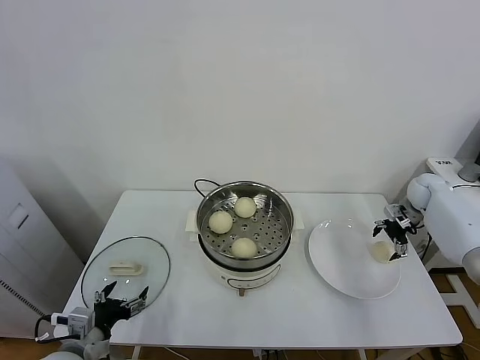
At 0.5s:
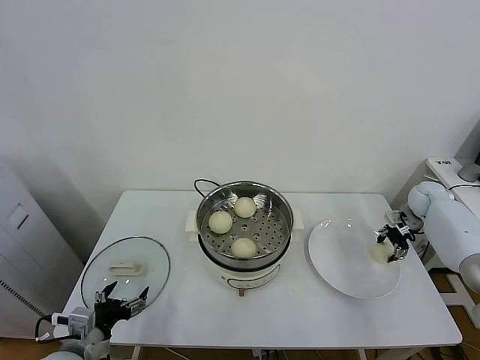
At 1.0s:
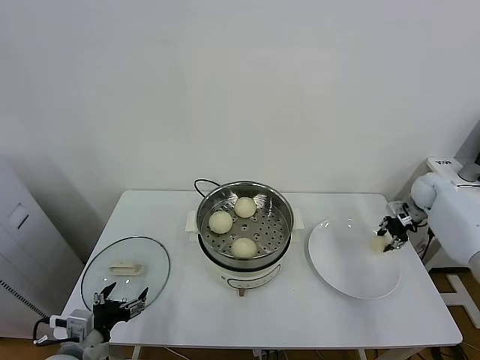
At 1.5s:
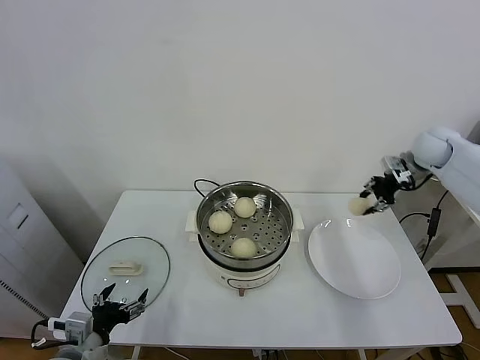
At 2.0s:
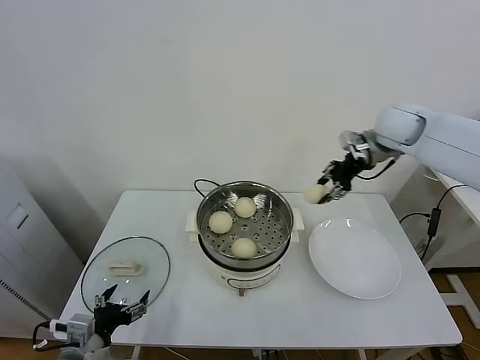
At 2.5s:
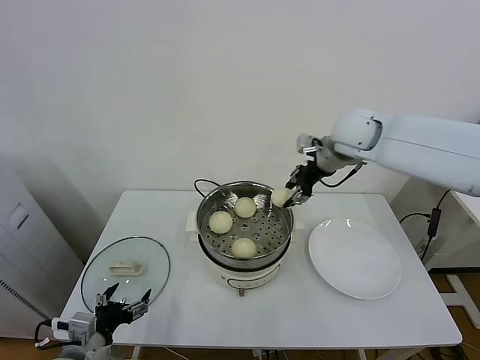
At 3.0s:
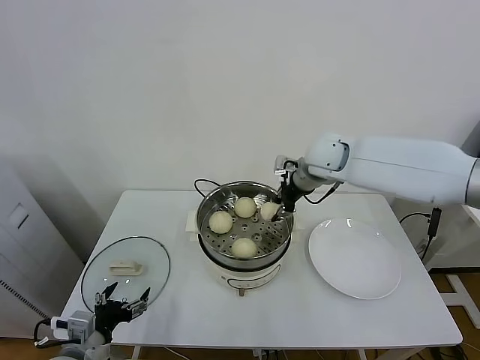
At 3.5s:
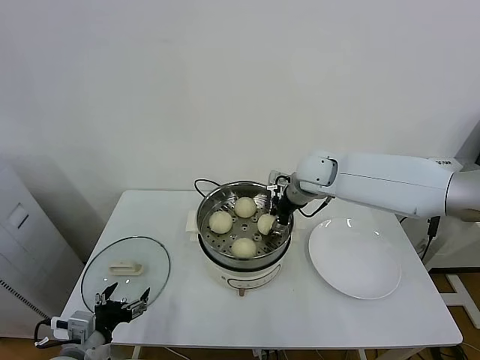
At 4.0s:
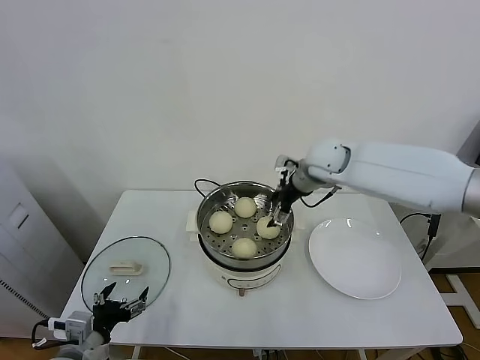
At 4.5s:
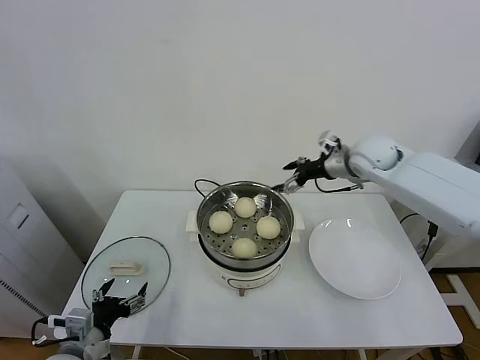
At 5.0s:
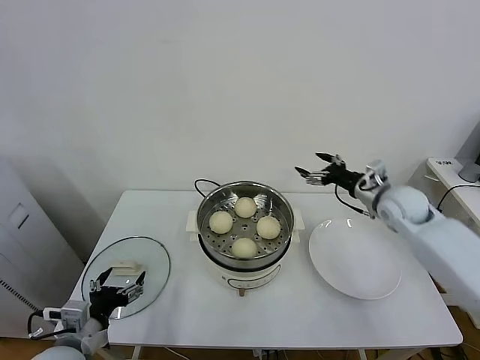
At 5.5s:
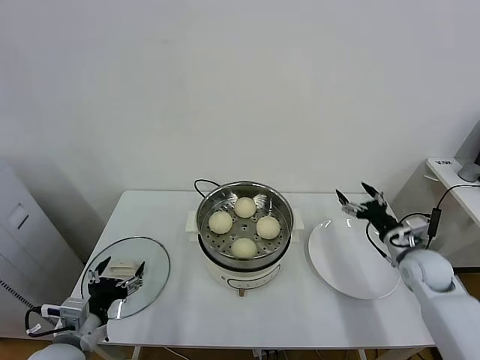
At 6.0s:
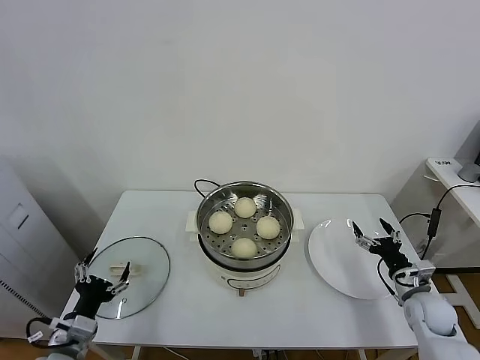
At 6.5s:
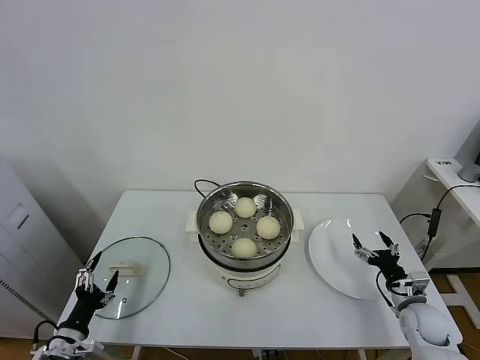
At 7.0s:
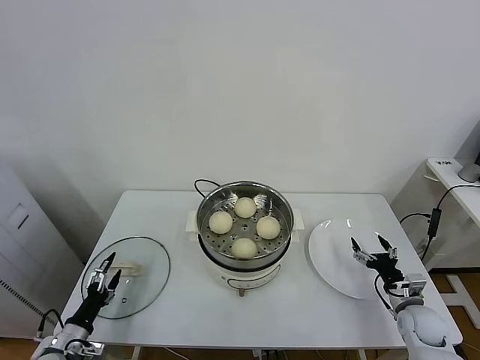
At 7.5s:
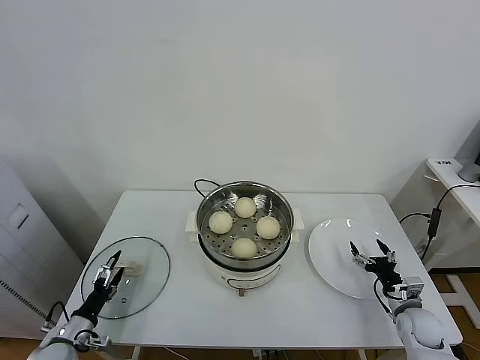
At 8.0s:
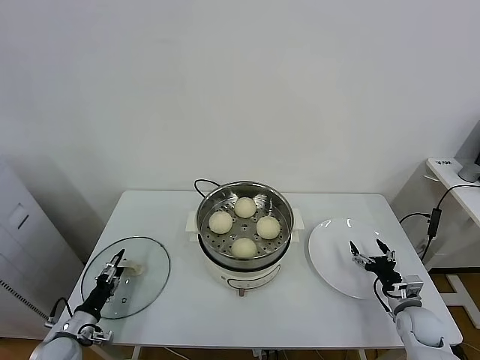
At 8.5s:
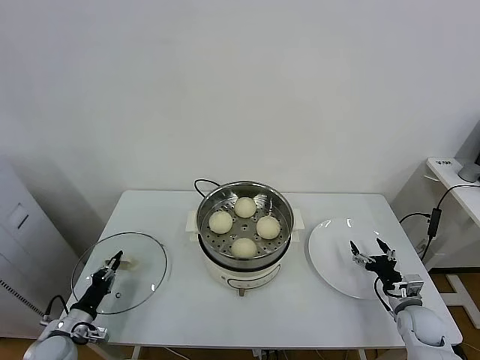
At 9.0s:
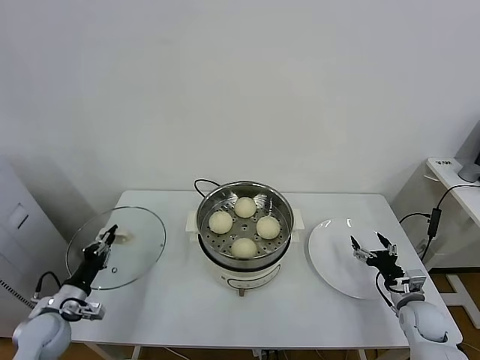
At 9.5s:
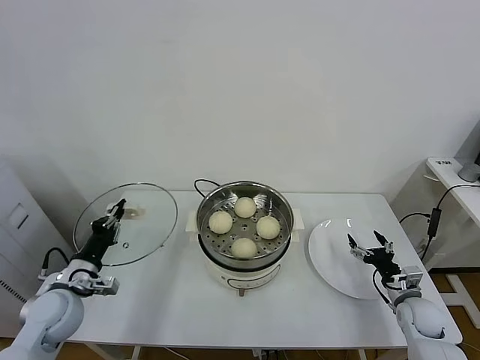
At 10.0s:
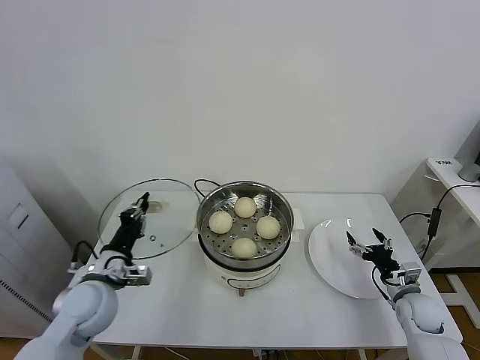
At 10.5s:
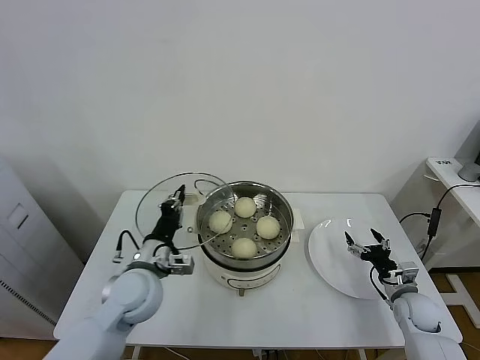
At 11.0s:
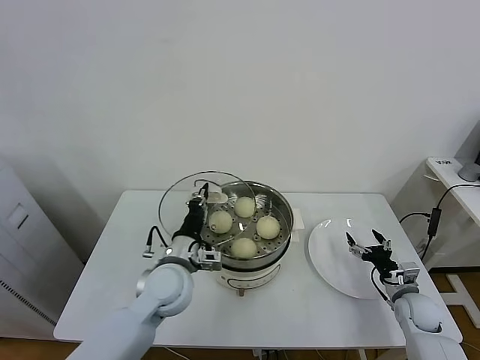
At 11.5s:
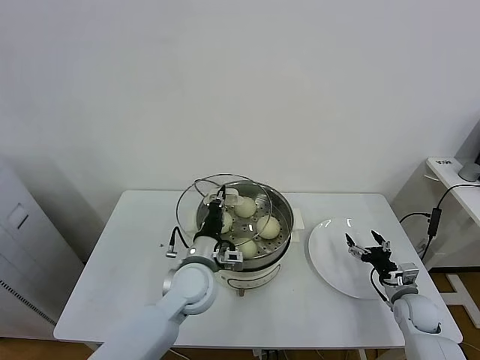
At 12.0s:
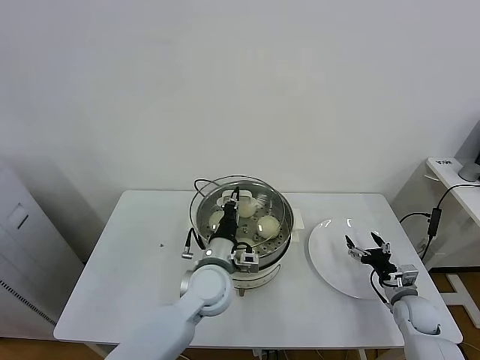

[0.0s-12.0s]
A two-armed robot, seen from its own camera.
Task of the whole recording: take steamed baozi put them in steamer.
Step, 1.0s to 3.5s: Place the baozi on the steamer with right gripper.
Step, 4.5s to 8.5s: Grasp the pot lid with left gripper.
0.0s to 2.0s: The right gripper heads upward and to the left, covering some 30 cm, and closes its fingers.
2.0s to 4.0s: The right gripper shifts some 15 cm to the left and downward, and opens up.
4.0s to 6.0s: The right gripper goes about 40 cm downward, to the right and backward.
6.0s to 8.0s: The right gripper travels downward by roughly 5 cm; the left gripper moves downward, to the left and forward, about 15 cm, and closes its fingers.
8.0s to 10.0s: The left gripper is displaced upward and to the right by some 25 cm, and closes up.
10.0s to 12.0s: The left gripper goes about 25 cm to the right.

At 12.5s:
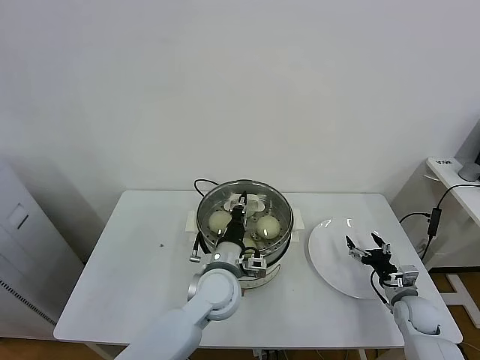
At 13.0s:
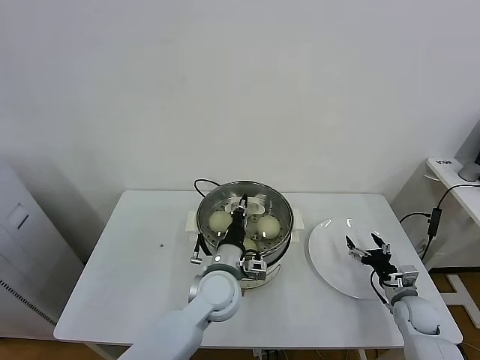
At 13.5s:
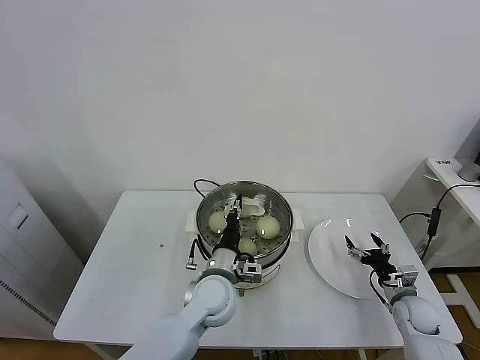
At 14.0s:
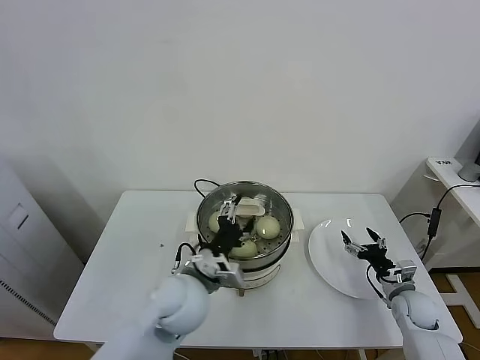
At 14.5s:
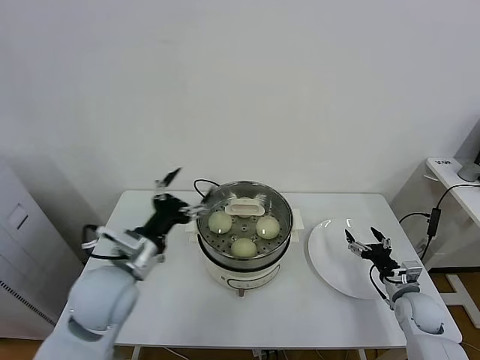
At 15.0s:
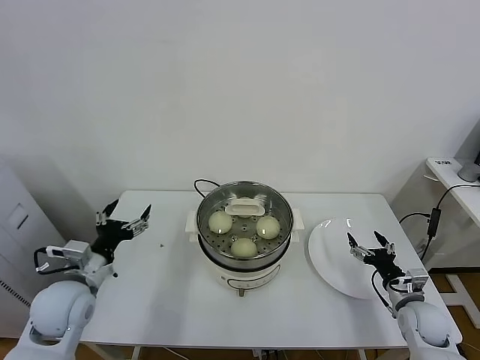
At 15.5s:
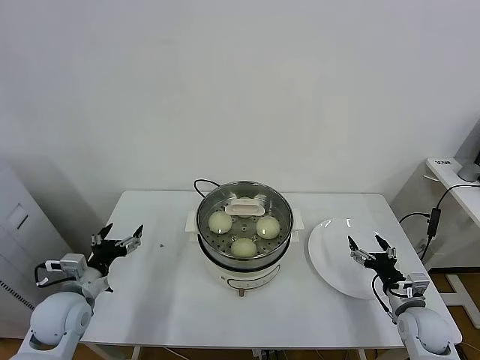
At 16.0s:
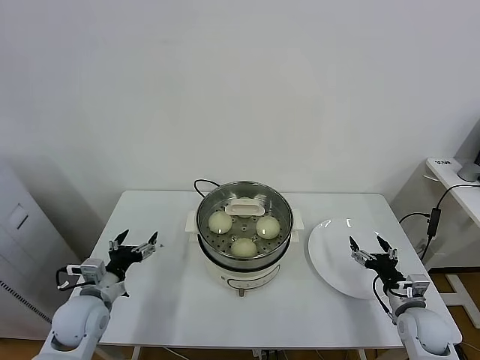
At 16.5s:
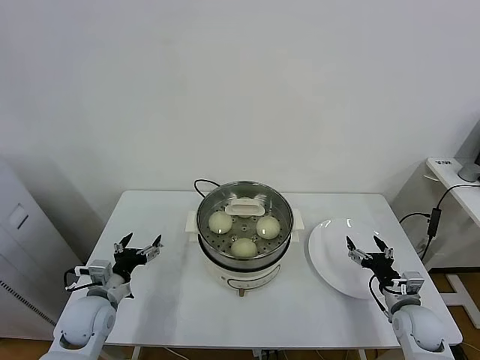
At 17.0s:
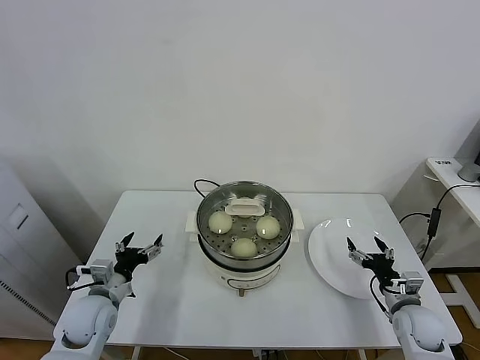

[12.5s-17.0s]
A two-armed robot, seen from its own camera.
Task of the whole recording: take steamed baozi put them in steamer.
12.5s to 14.5s: The left gripper is displaced to the left and upward by some 20 cm, and opens up.
14.5s to 17.0s: The left gripper shifts some 20 cm downward and to the left.

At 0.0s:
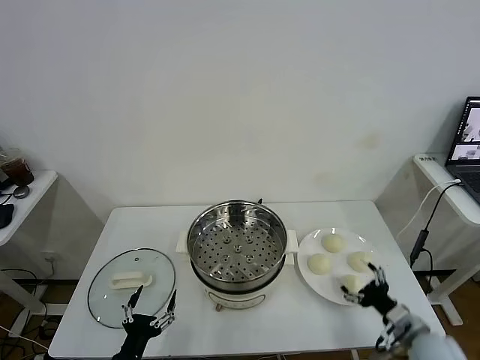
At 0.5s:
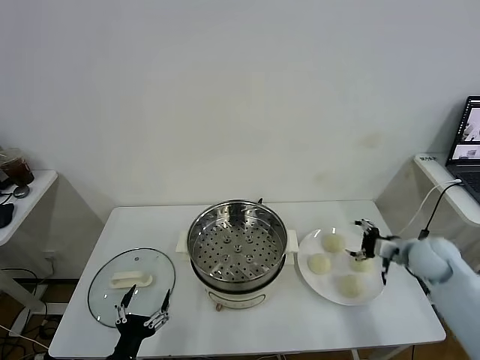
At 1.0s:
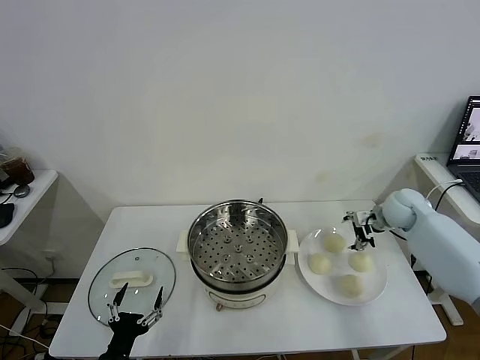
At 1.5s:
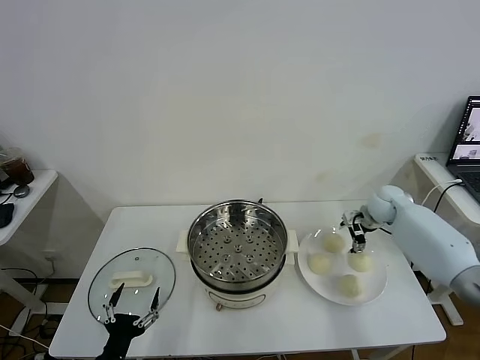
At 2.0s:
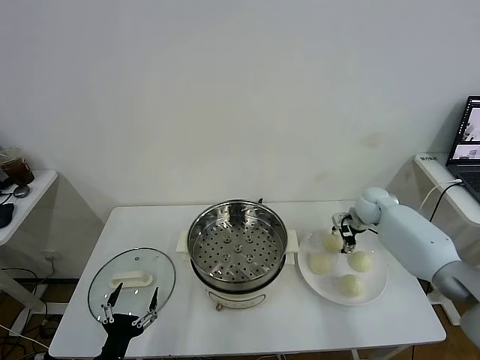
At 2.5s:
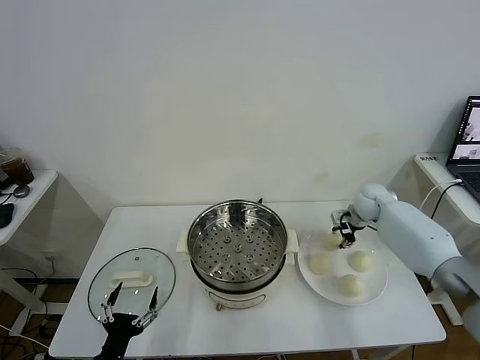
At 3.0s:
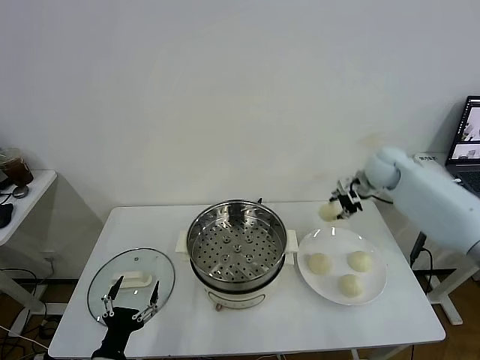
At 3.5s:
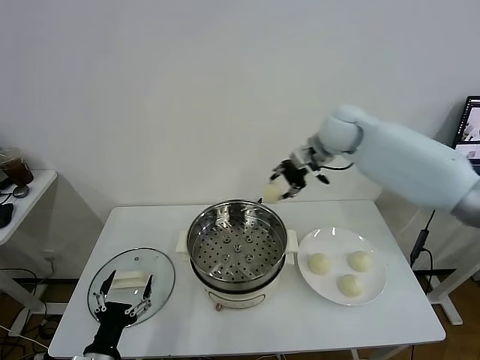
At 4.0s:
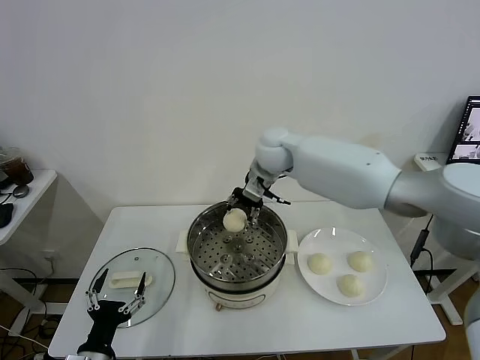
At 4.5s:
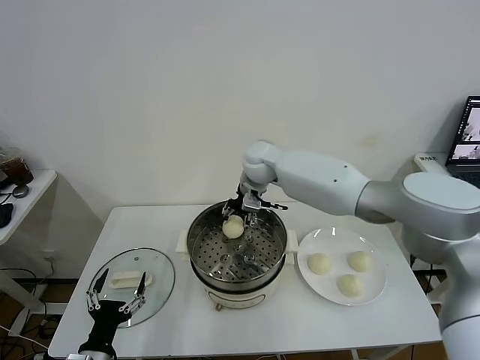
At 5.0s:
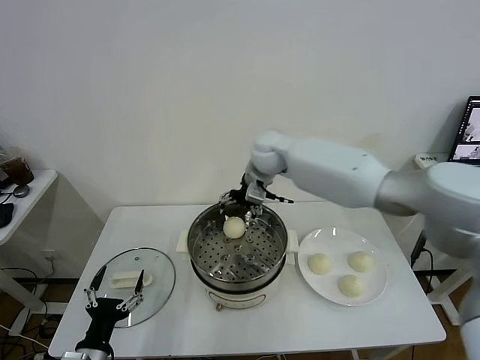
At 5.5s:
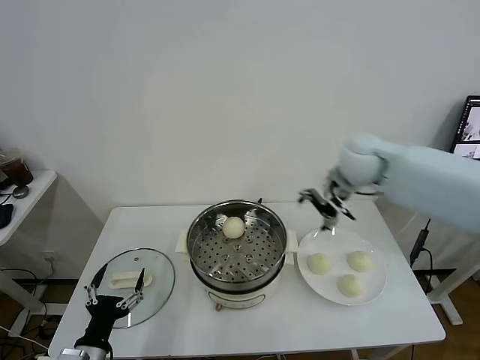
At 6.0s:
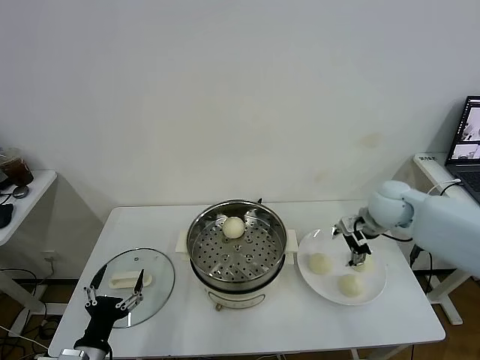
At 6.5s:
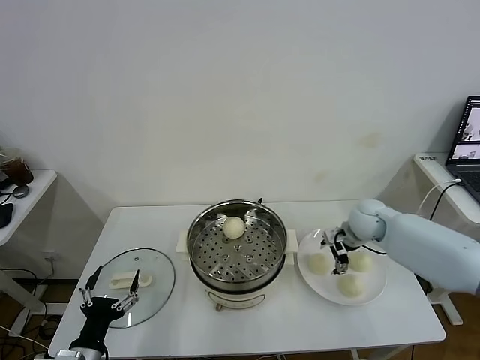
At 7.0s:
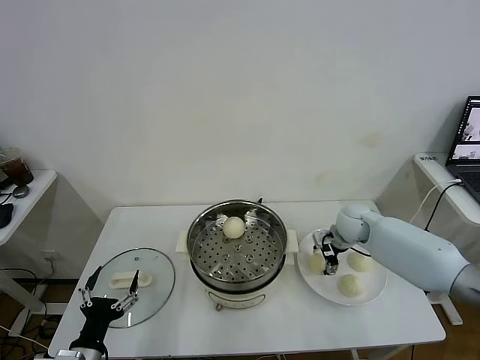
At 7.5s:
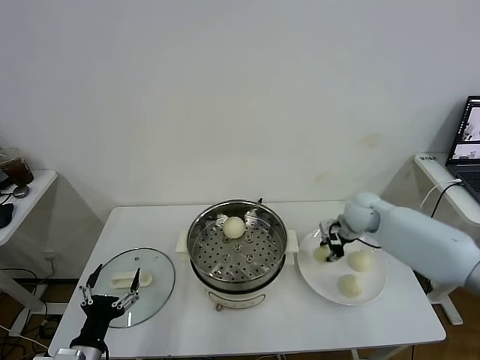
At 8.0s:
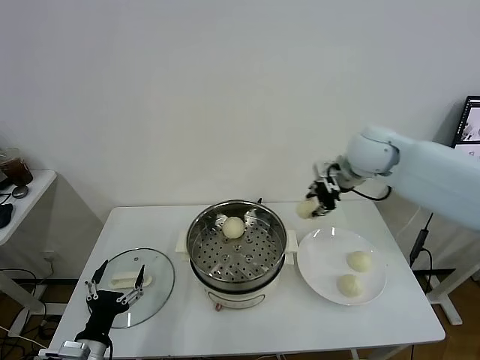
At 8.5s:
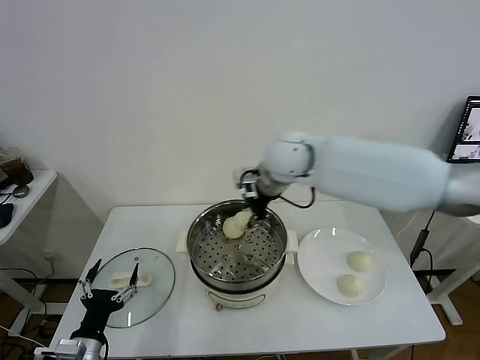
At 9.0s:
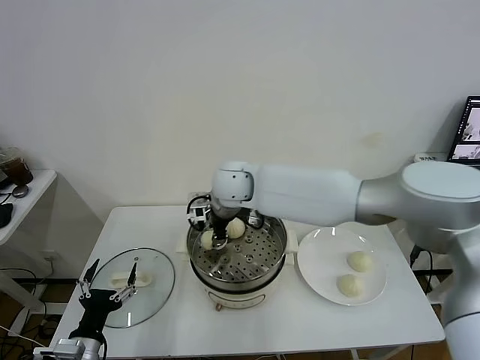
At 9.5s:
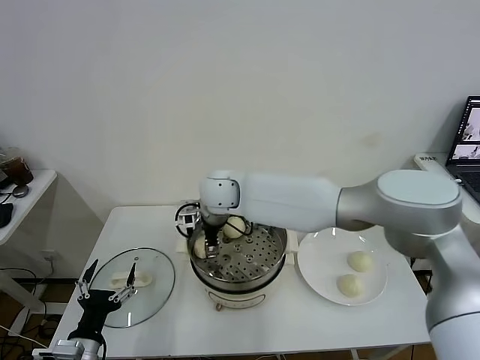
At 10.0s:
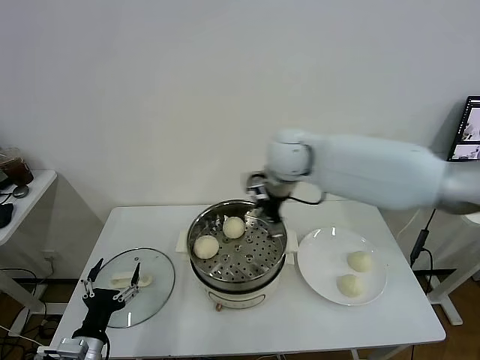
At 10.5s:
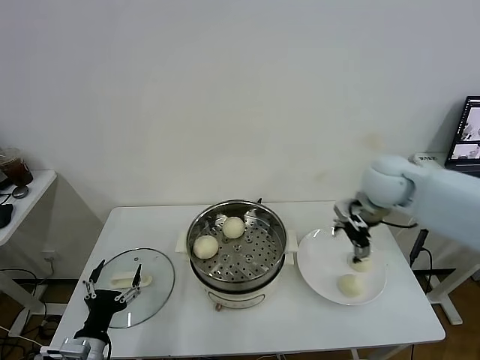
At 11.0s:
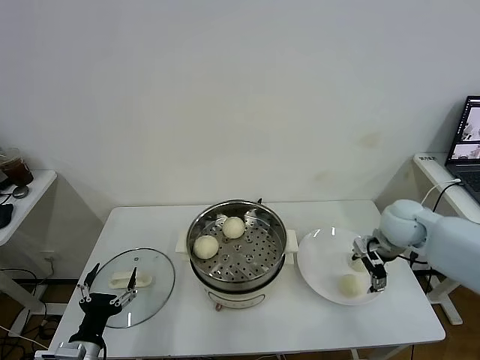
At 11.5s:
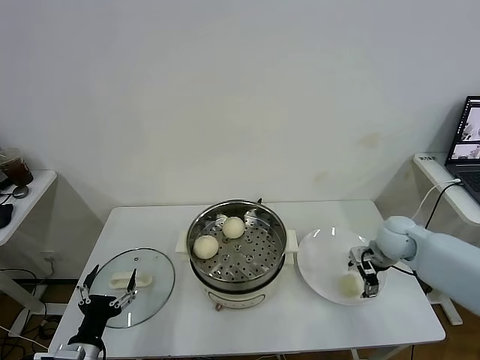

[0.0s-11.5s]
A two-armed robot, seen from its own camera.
Task of the whole recording: take steamed baozi put them in steamer.
Step, 0.0s to 2.0s: Grasp the baozi in the plate with right gripper.
Step, 2.5s to 4.5s: Place the baozi on the steamer with right gripper.
Step, 5.0s to 7.0s: Grasp the baozi in the plate with right gripper.
Step, 7.5s to 9.5s: Place the baozi on the steamer with right gripper.
2.0s to 4.0s: The right gripper goes about 35 cm to the left and upward, and closes.
4.0s to 6.0s: The right gripper shifts about 25 cm to the right, and opens up.
6.0s to 7.5s: The right gripper travels downward by some 5 cm, and closes up.
7.5s to 9.5s: The right gripper goes roughly 35 cm to the left, and opens up.
9.5s to 11.5s: The right gripper shifts some 40 cm to the right.
